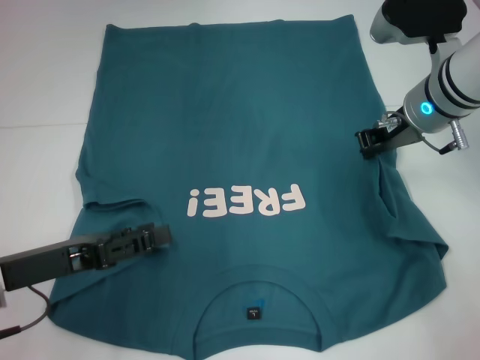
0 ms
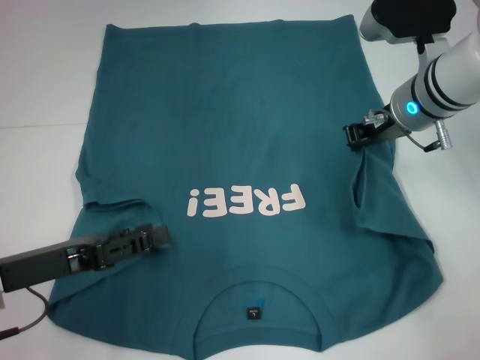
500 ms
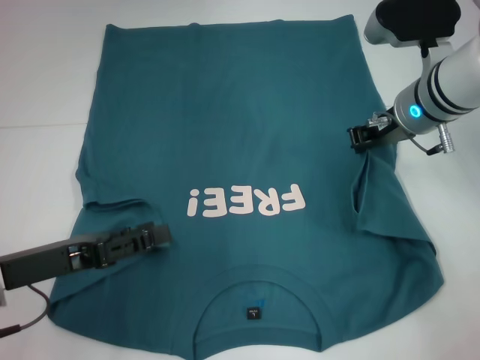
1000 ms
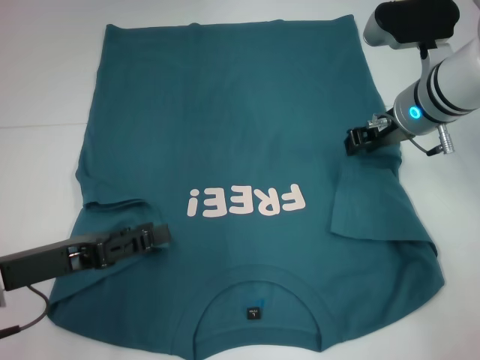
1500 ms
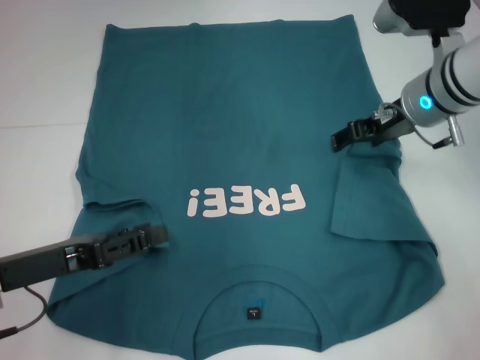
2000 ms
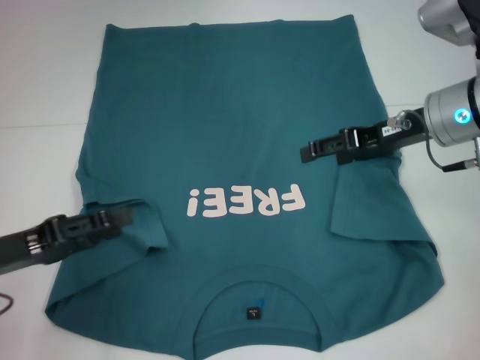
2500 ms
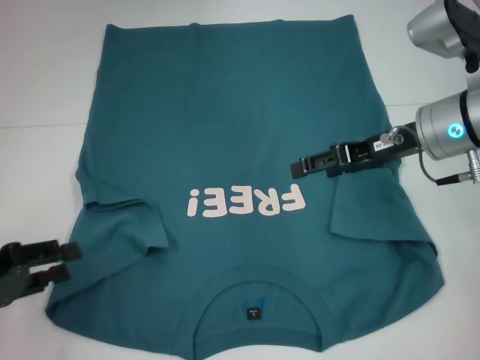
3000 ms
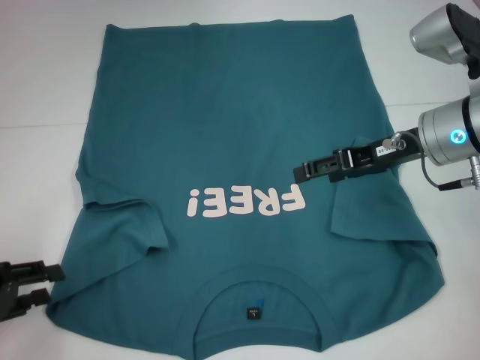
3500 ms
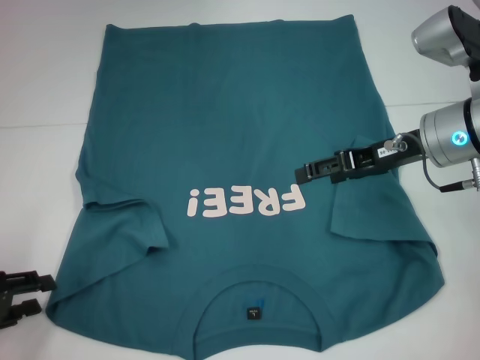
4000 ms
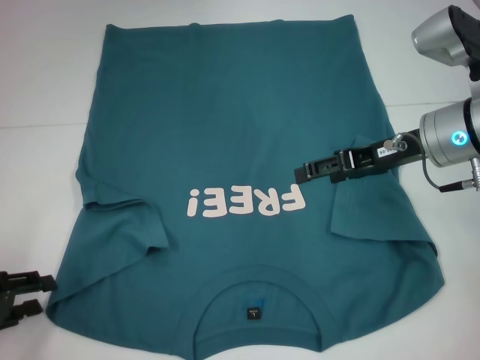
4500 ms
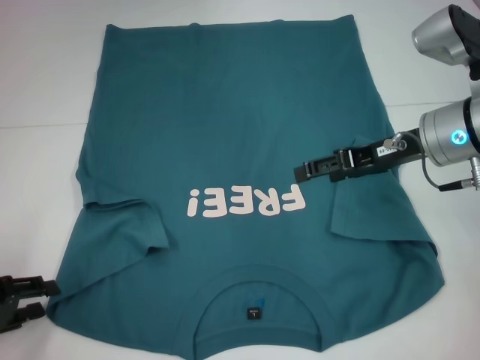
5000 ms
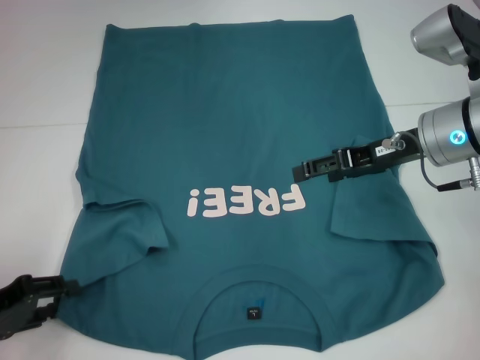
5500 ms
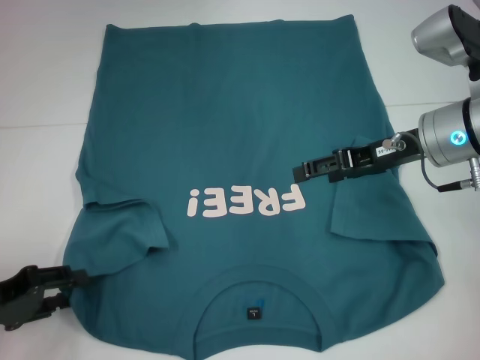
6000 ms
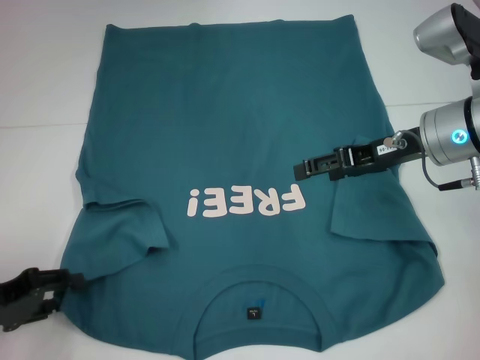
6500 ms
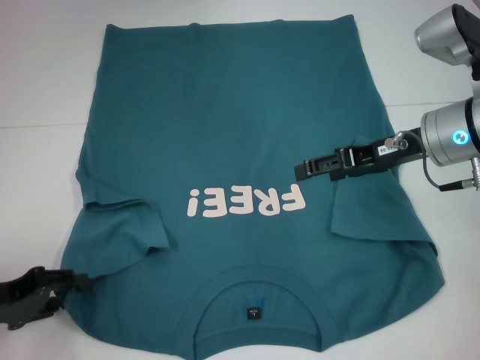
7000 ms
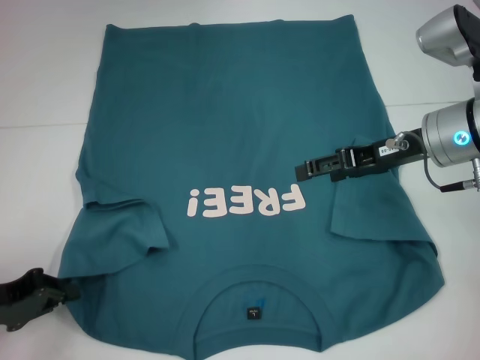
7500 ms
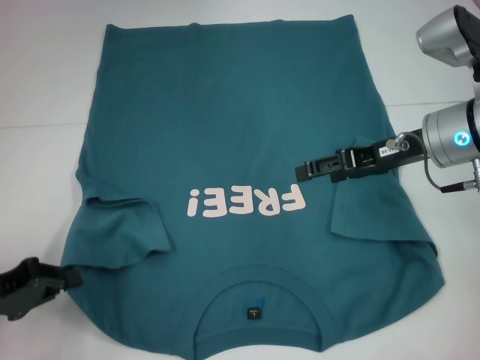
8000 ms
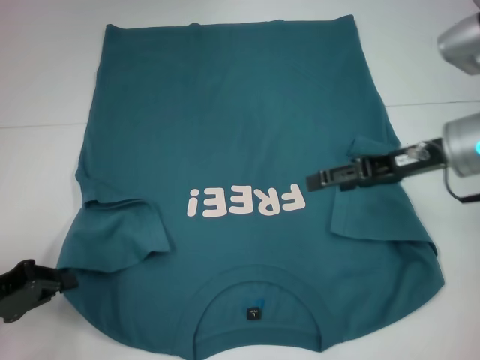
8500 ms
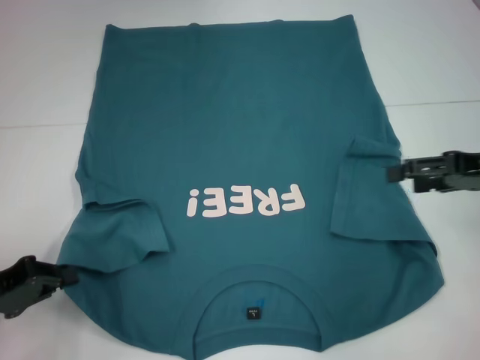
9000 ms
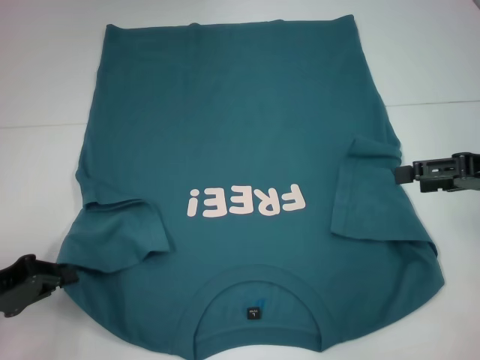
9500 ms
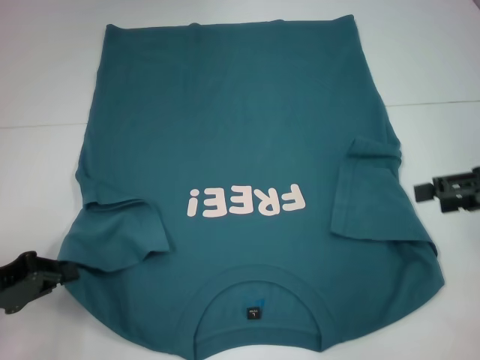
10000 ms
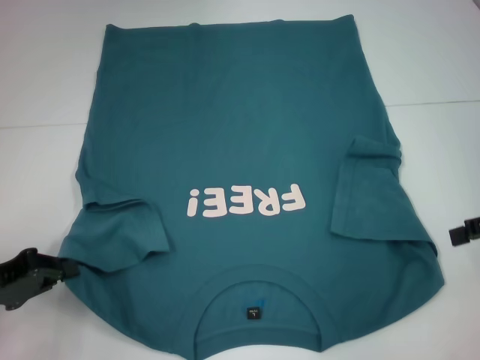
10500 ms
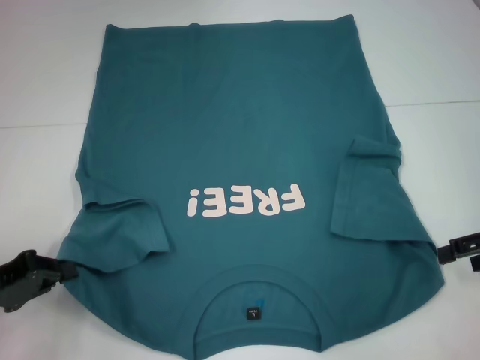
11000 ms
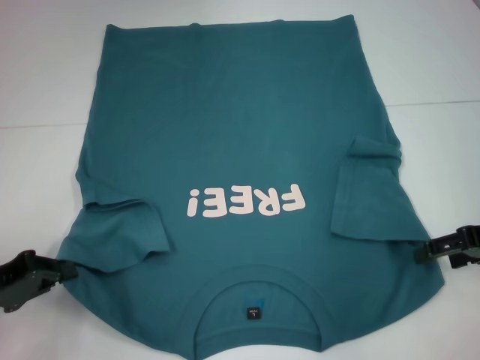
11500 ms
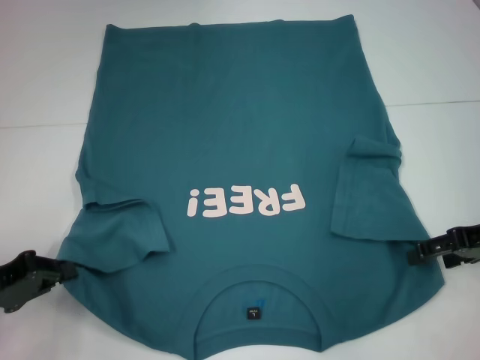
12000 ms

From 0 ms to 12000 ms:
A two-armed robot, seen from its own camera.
Step, from 2000 ms to 7500 ms: Grab the bottom left corner with your left hand.
From 0 ms to 2000 ms: The right gripper opens up.
From 2000 ms to 4000 ms: The right gripper shifts roughly 5 cm backward. Meanwhile the left gripper goes roughly 10 cm to the left.
From 4000 ms to 6000 ms: The grippers make only small movements.
From 6000 ms to 8000 ms: The left gripper closes.
From 8000 ms to 10000 ms: The right gripper is displaced to the right and backward by approximately 15 cm.
From 10000 ms to 12000 ms: The right gripper moves downward, approximately 5 cm.

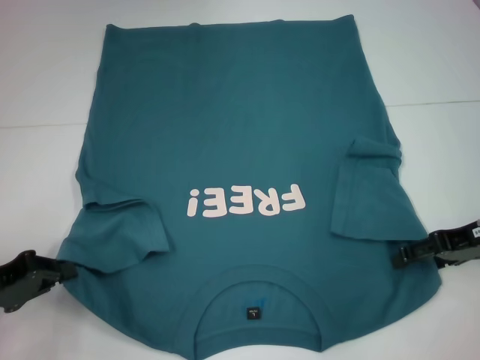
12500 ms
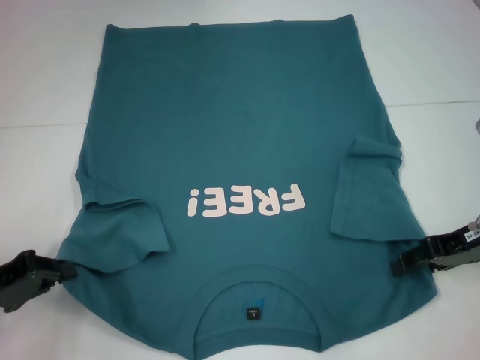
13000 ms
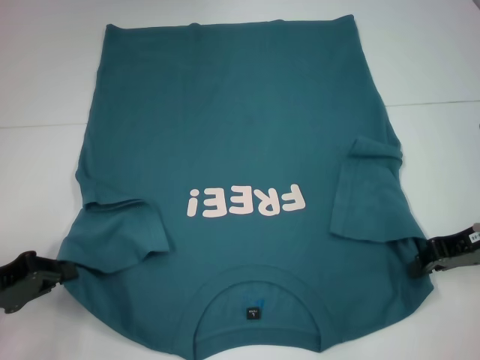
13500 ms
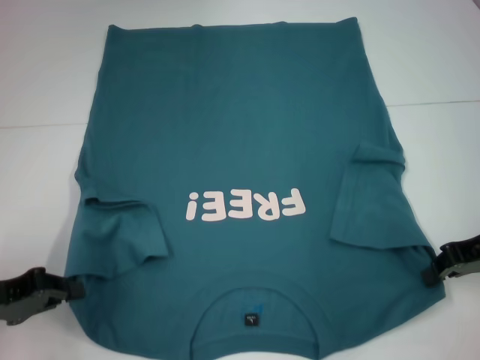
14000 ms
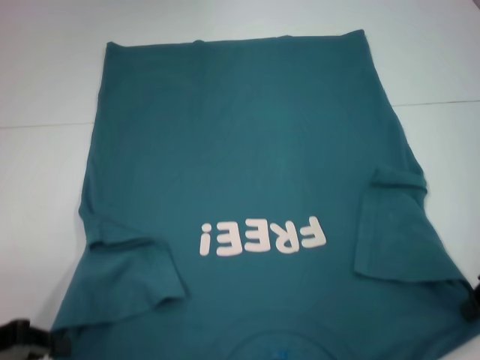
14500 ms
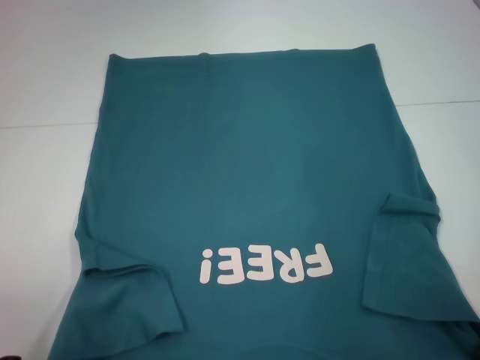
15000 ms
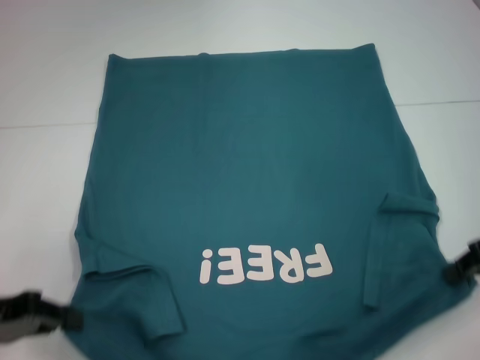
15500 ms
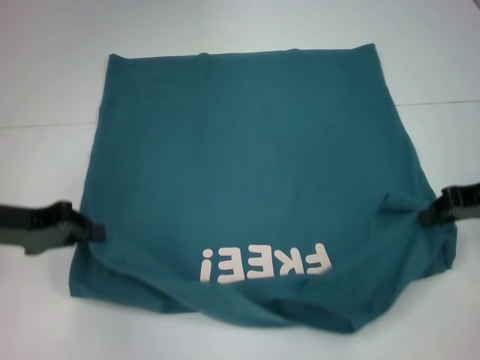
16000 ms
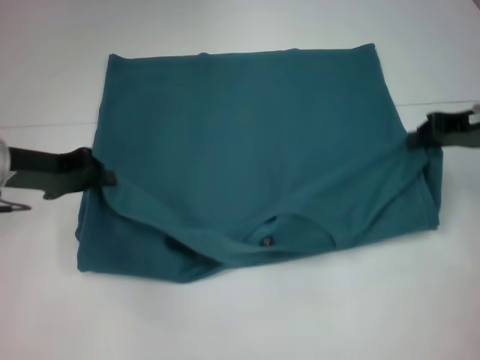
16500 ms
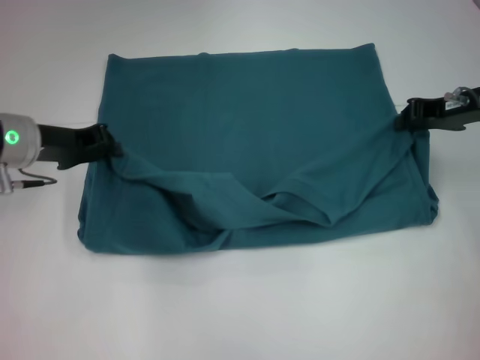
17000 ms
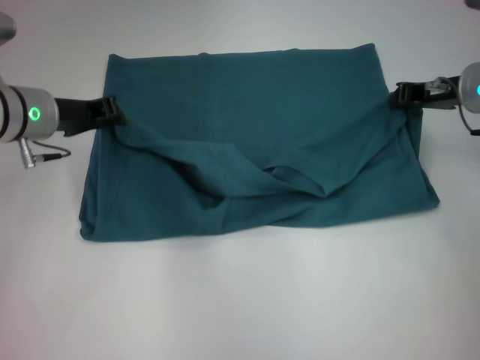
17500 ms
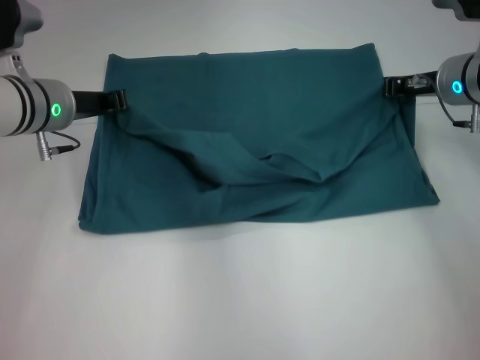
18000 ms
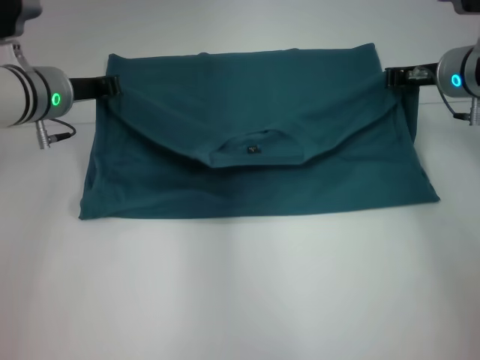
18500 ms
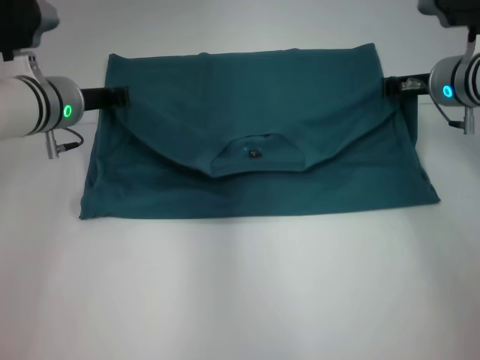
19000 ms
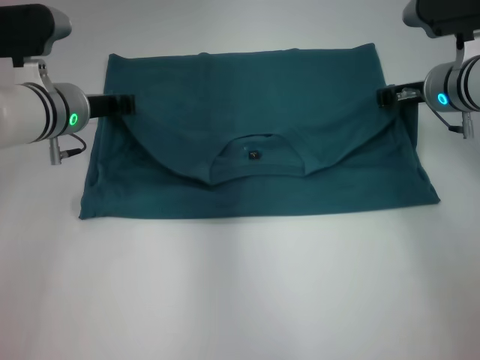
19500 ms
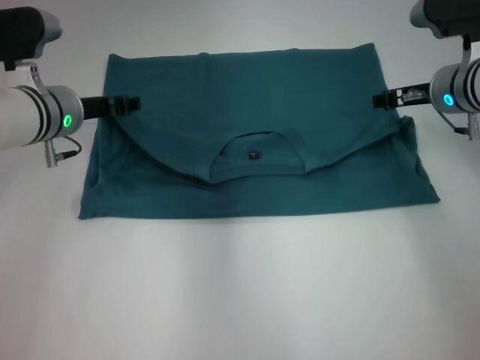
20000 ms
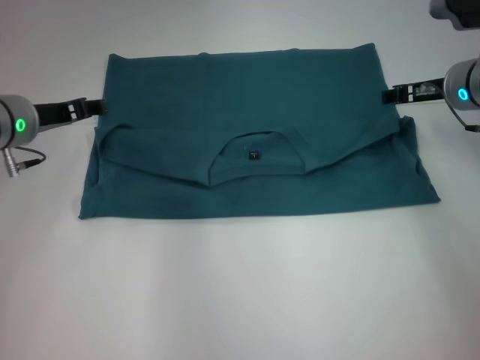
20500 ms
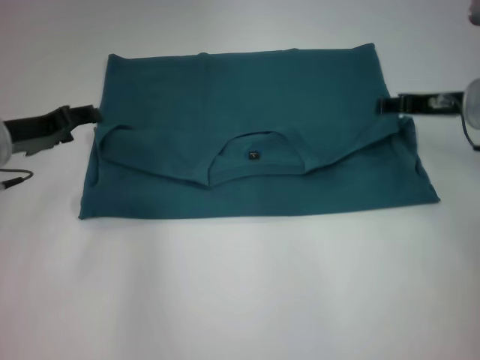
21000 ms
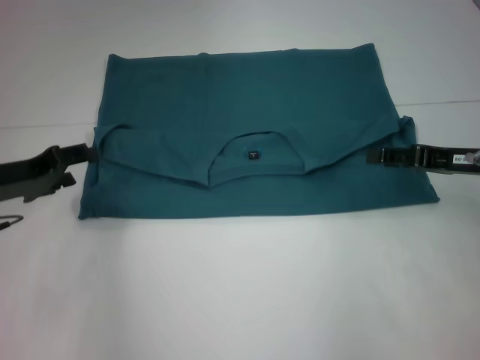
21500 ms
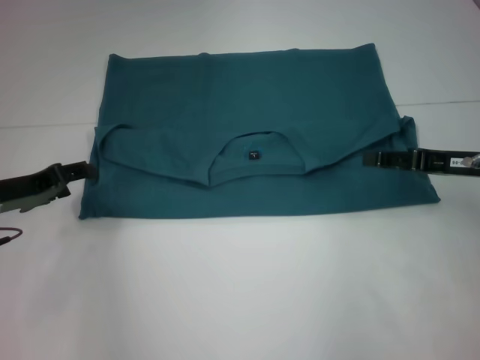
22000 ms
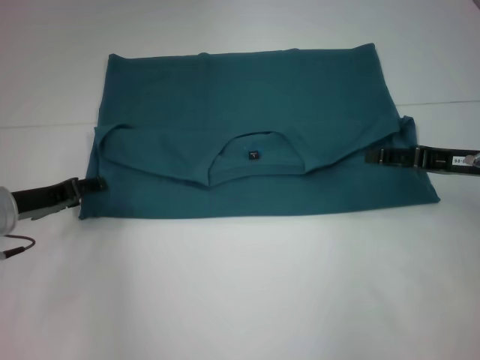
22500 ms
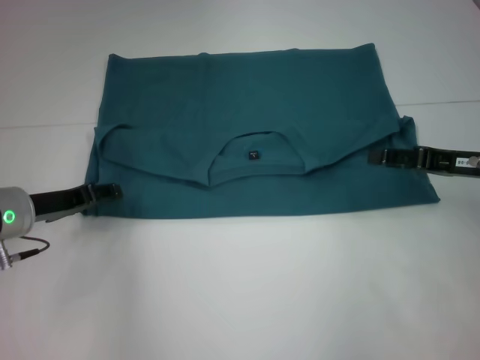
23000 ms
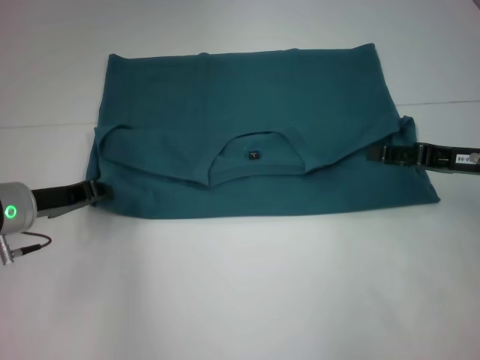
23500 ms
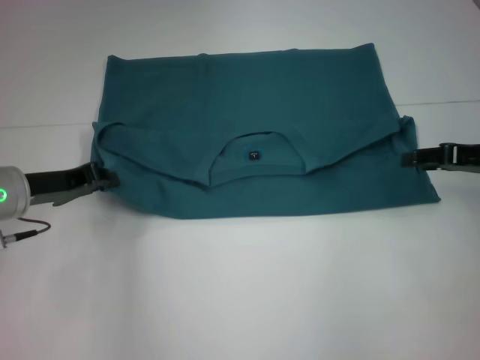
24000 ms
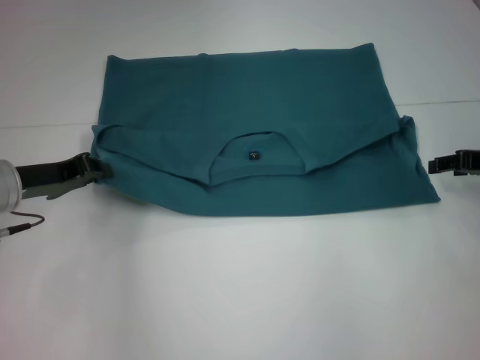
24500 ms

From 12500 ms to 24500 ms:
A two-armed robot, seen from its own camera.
Step, from 14000 ms to 19500 ms: Fold the clothes to the right.
From 12500 ms to 14500 ms: The right gripper closes its fingers.
From 14500 ms to 16500 ms: The left gripper goes approximately 15 cm forward and to the right; the right gripper goes roughly 10 cm forward.
From 16500 ms to 18500 ms: The right gripper is displaced forward and to the left by some 10 cm. Meanwhile the left gripper goes some 10 cm to the right and forward.
From 18500 ms to 20500 ms: The left gripper opens its fingers. The right gripper opens its fingers.
From 20500 ms to 22500 ms: The left gripper goes approximately 10 cm backward and downward; the right gripper shifts approximately 10 cm backward.
From 22500 ms to 24500 ms: The right gripper shifts by roughly 5 cm. Meanwhile the left gripper closes its fingers.

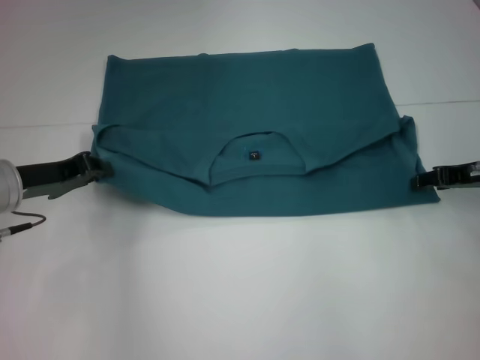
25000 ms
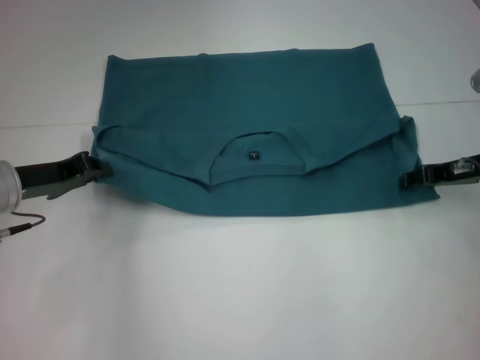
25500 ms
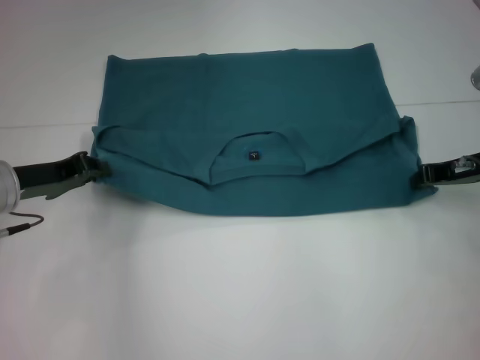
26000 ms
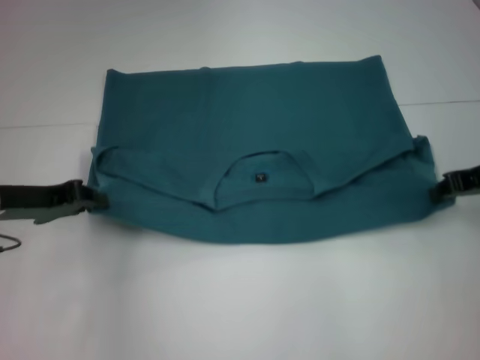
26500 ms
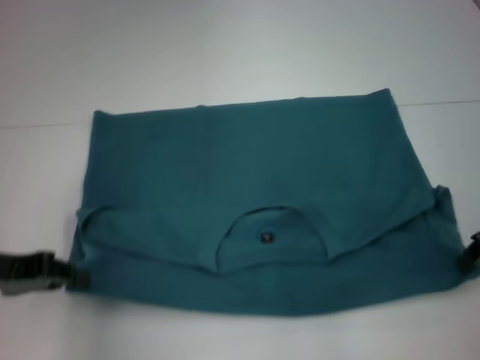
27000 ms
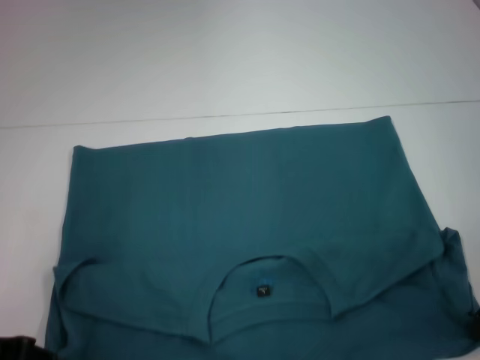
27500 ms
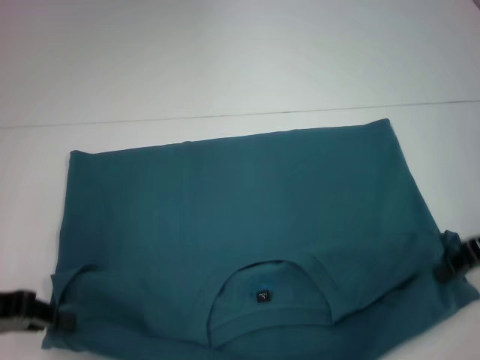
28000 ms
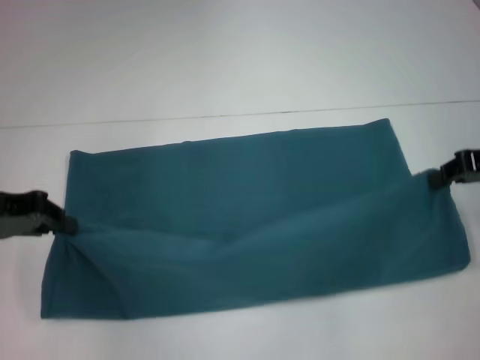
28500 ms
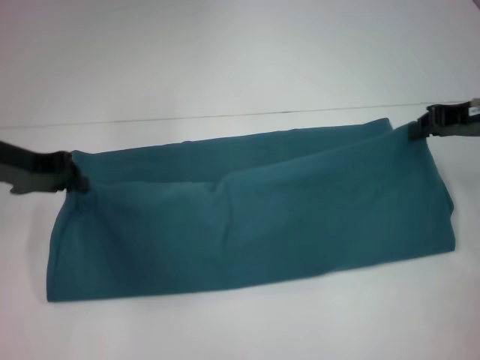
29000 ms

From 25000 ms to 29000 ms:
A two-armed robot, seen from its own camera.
Step, from 25000 ms to 27500 ms: Pull the clothes with your left hand.
Step, from 25000 ms to 27500 ms: Pull the clothes with your right hand.
From 25000 ms to 27000 ms: The two grippers go approximately 5 cm backward. The right gripper closes its fingers.
From 27000 ms to 29000 ms: The grippers both shift forward by about 10 cm.
